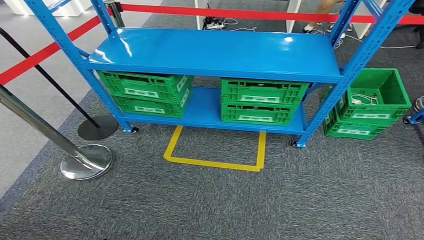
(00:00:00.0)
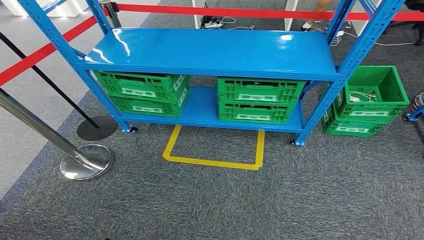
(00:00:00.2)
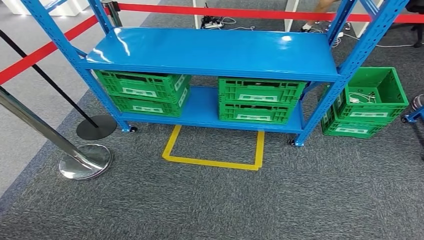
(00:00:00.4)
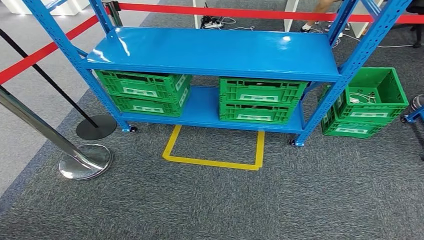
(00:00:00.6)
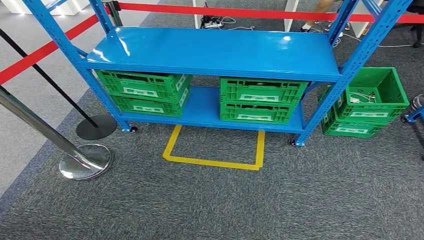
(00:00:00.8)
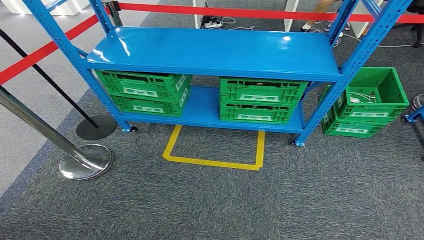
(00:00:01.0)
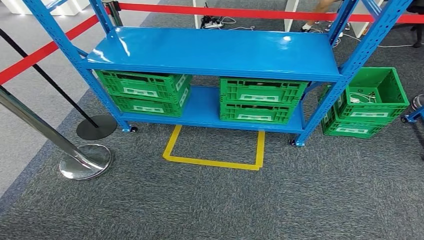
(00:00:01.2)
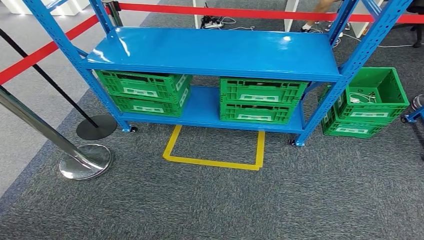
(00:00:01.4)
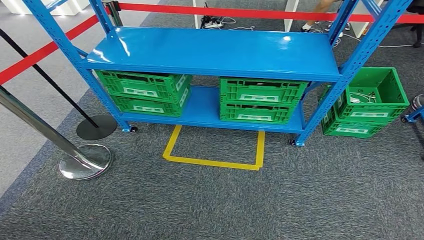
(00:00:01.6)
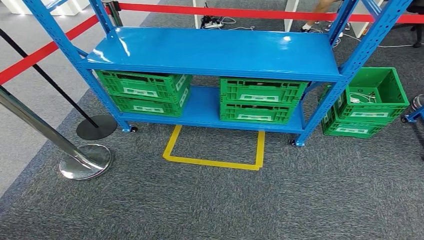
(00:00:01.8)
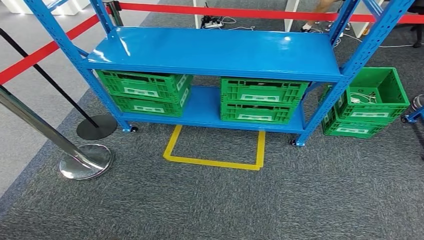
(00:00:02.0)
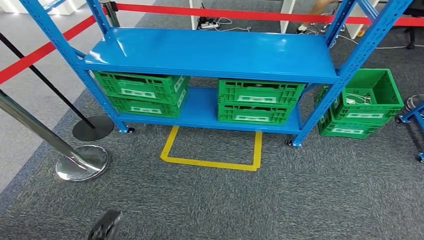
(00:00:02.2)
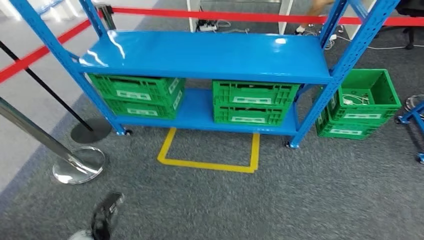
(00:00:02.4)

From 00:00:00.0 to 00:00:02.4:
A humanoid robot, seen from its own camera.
Step, from 00:00:00.0 to 00:00:02.4: Return to the initial position at the workbench.
